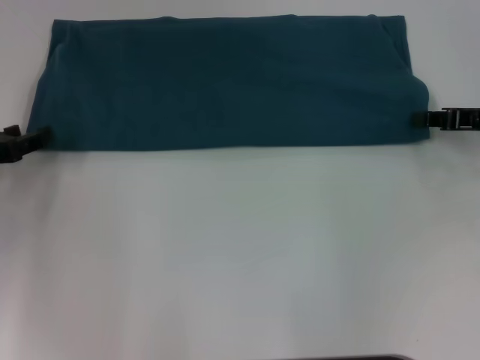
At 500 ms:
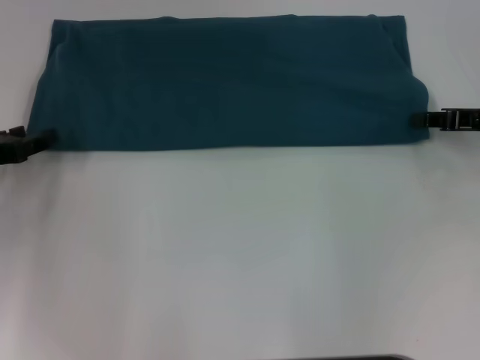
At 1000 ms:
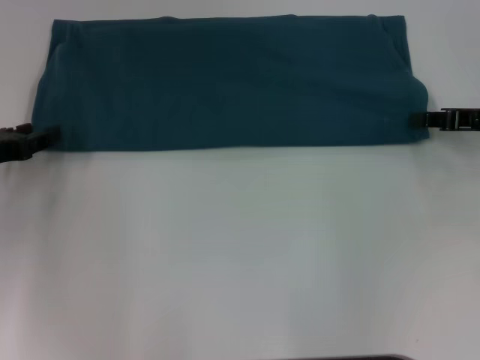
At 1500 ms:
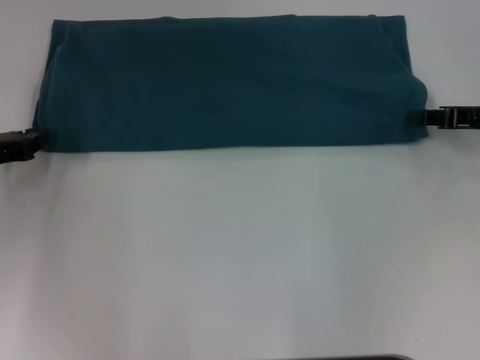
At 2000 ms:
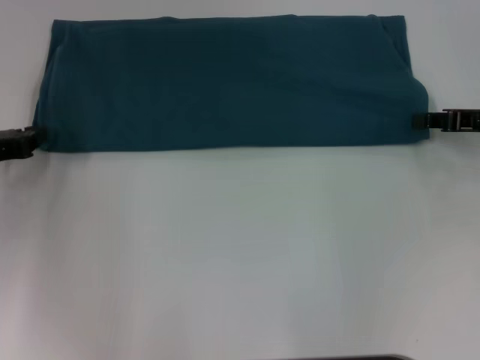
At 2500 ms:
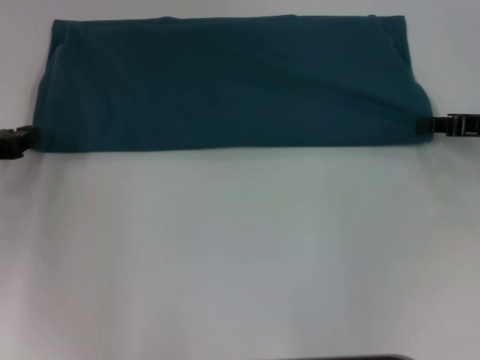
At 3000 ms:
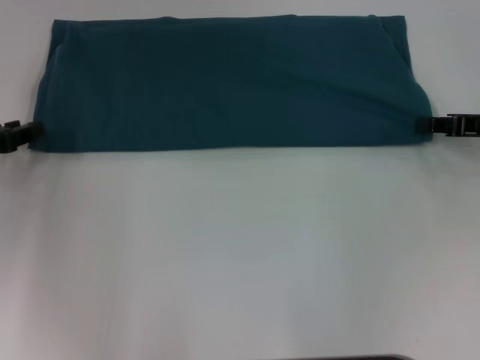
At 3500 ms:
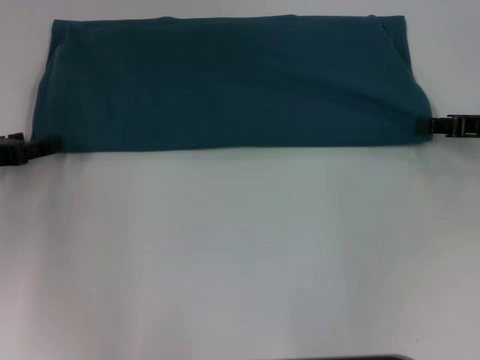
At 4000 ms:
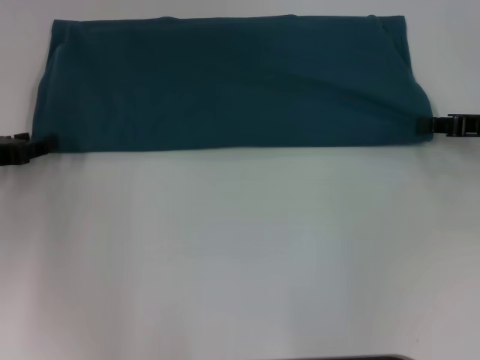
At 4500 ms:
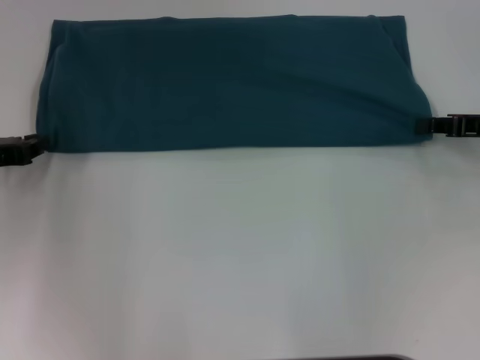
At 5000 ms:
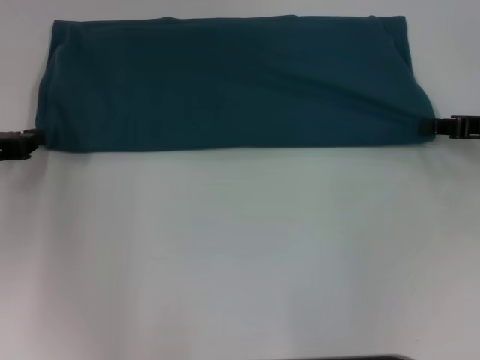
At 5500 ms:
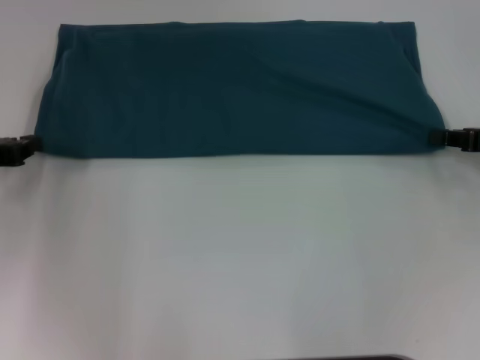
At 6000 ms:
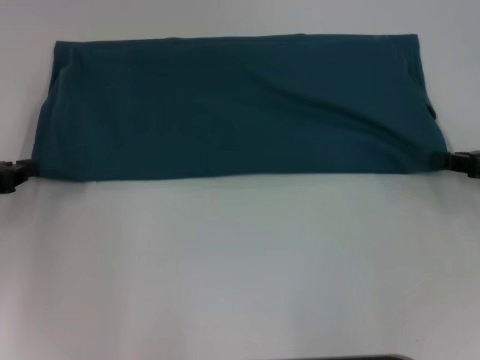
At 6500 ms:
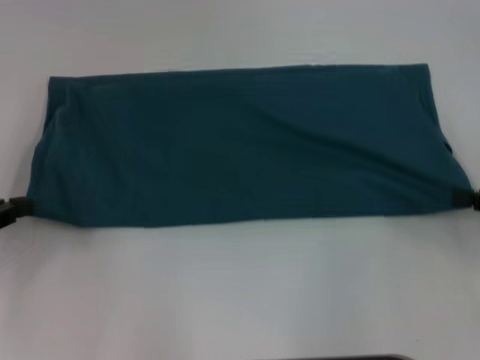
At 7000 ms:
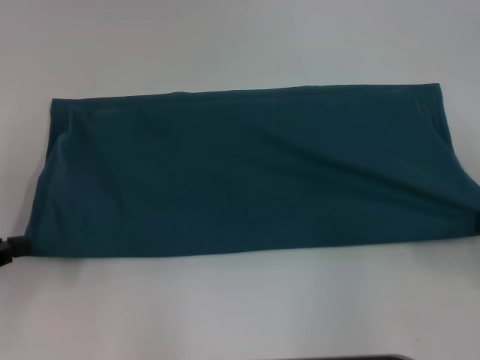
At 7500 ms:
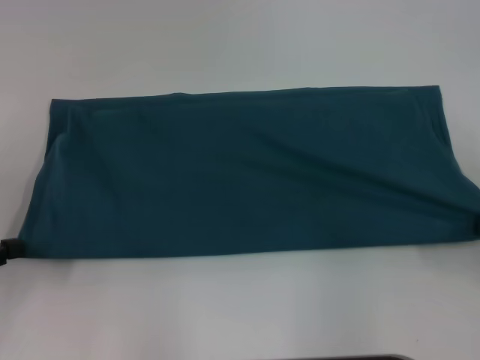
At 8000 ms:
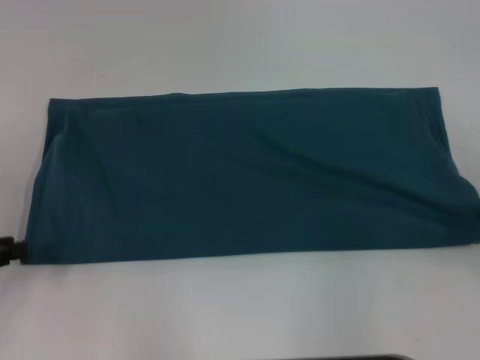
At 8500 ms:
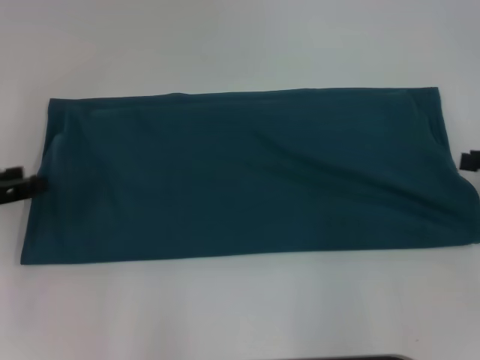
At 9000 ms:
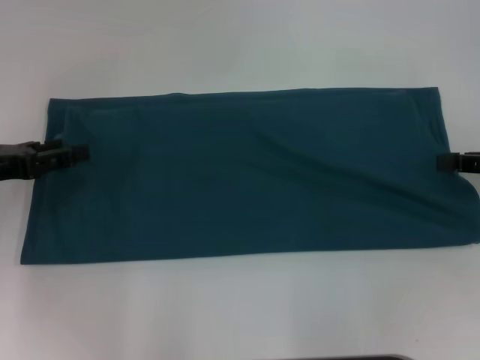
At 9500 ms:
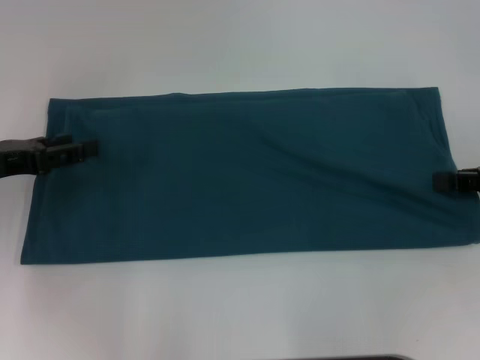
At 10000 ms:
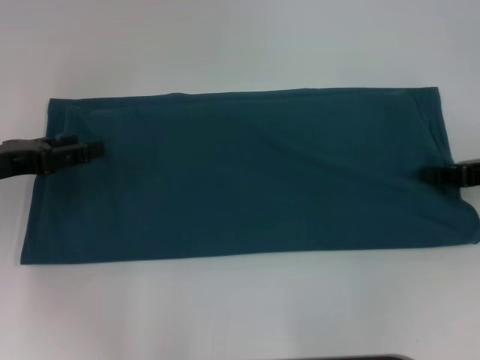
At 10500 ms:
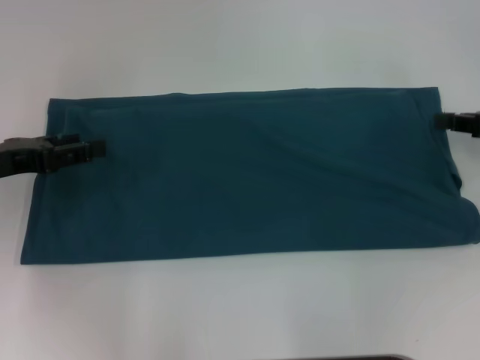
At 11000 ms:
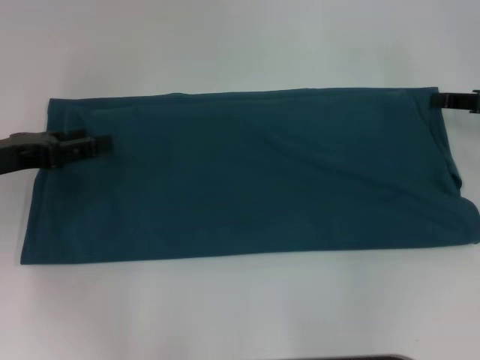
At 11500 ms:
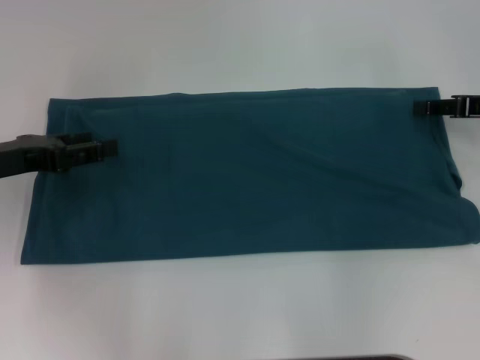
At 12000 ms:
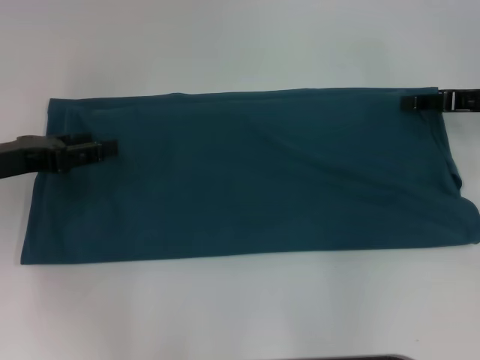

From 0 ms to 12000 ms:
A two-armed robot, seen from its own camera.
Step, from 0 ms to 8000 ms: Pull the clothes with your left hand.
Step, from 0 ms to 8000 ms: Pull the clothes with your right hand.
From 4000 ms to 6000 ms: The left gripper closes. The right gripper changes place by approximately 5 cm.
From 6000 ms to 8000 ms: Both grippers travel together backward, roughly 5 cm.
From 8000 ms to 10000 ms: The left gripper moves forward and to the right, some 10 cm, and opens its fingers, while the right gripper shifts about 10 cm forward and to the left, and opens, then closes again.
From 10000 ms to 12000 ms: The right gripper goes roughly 5 cm forward, and opens up.

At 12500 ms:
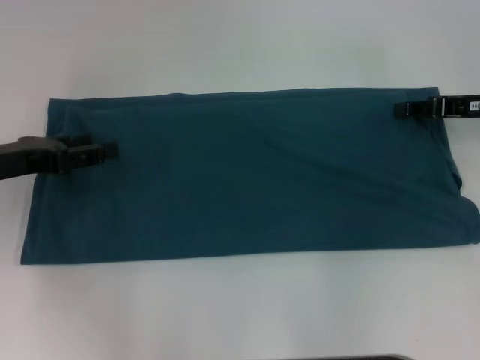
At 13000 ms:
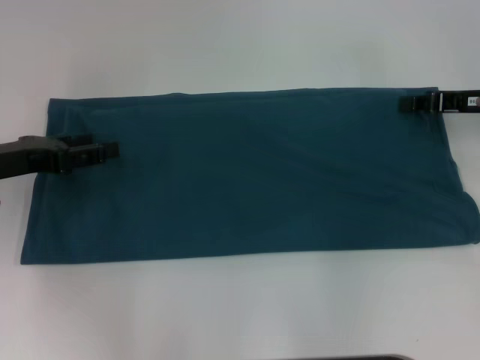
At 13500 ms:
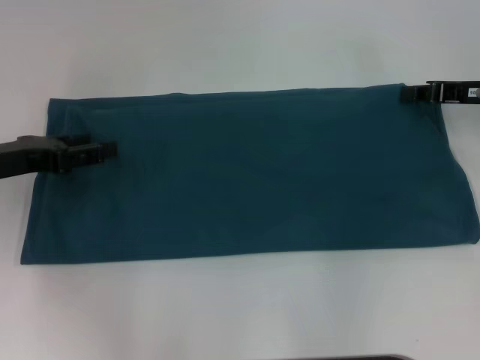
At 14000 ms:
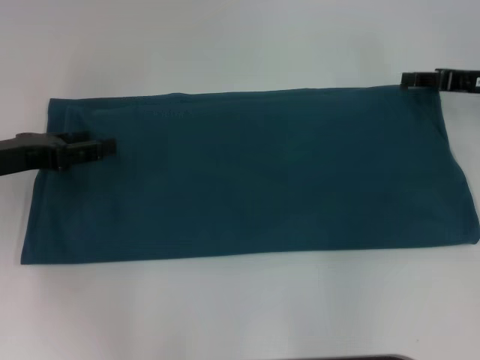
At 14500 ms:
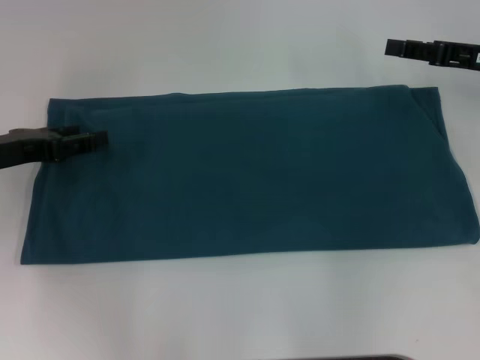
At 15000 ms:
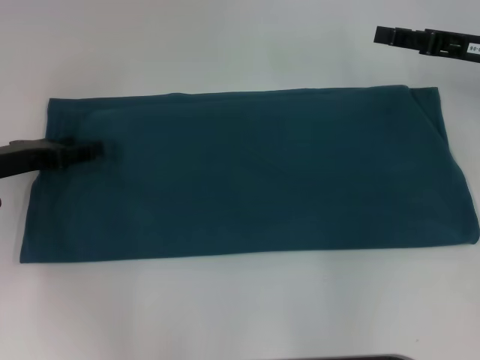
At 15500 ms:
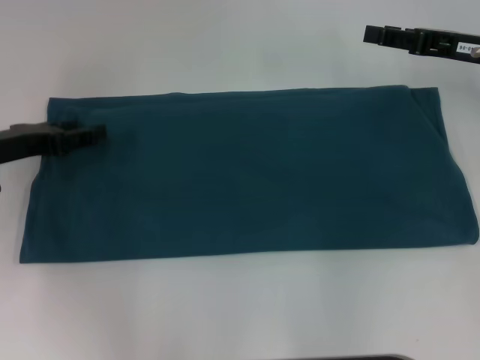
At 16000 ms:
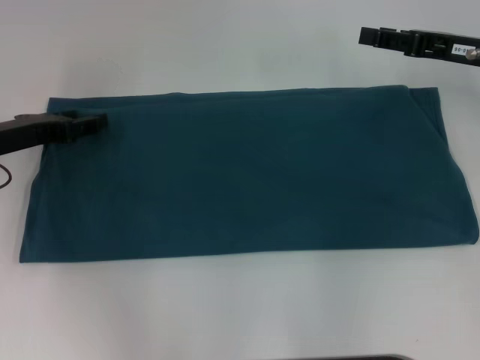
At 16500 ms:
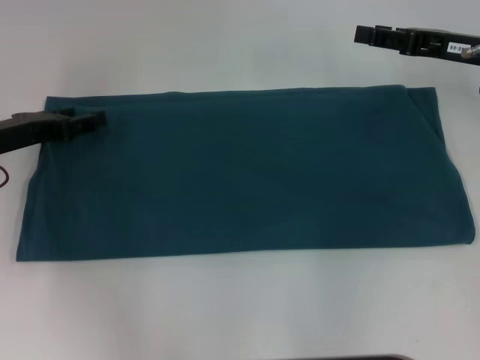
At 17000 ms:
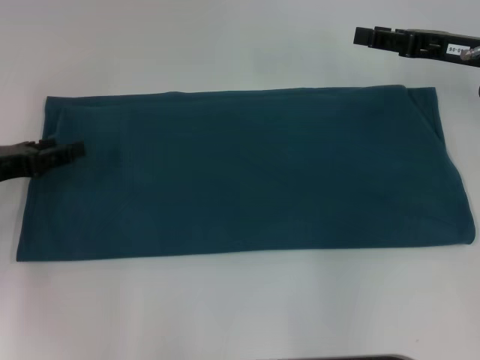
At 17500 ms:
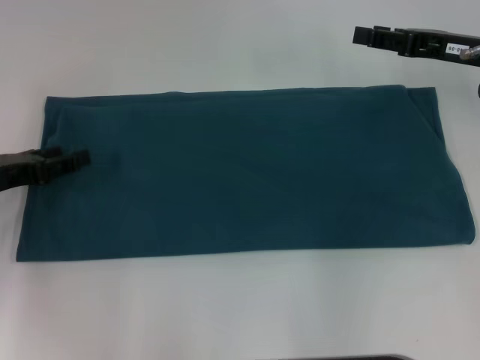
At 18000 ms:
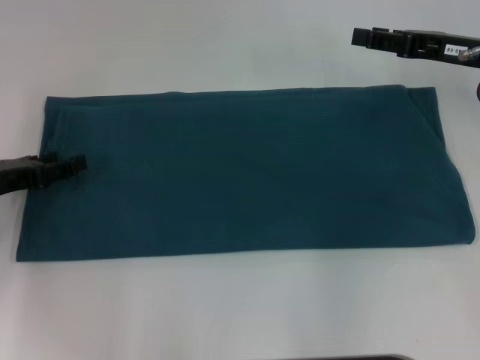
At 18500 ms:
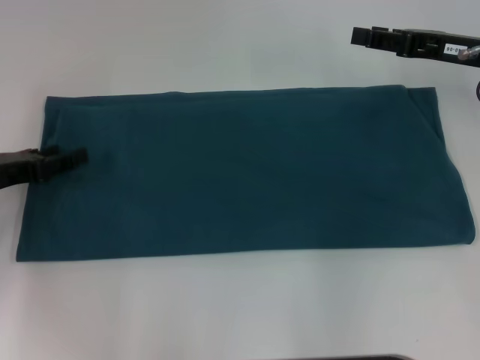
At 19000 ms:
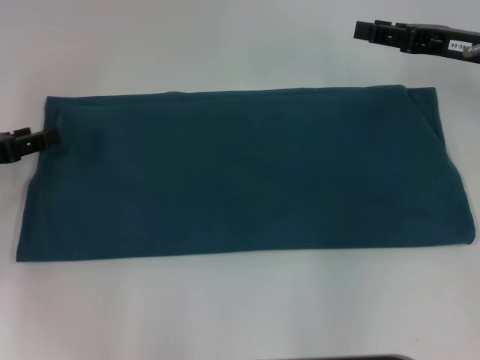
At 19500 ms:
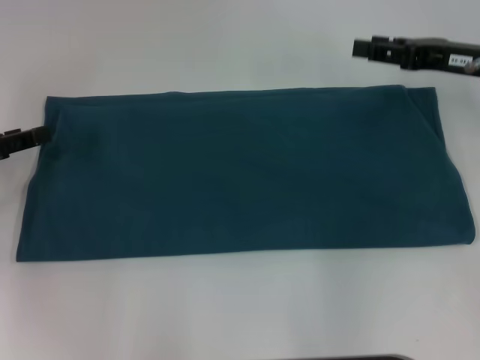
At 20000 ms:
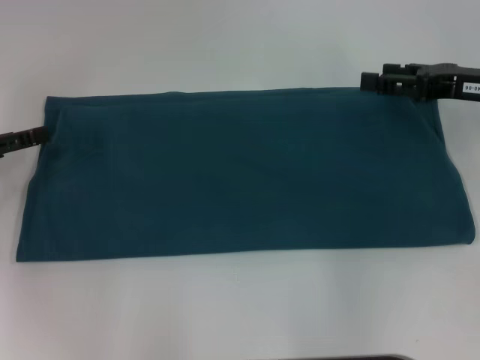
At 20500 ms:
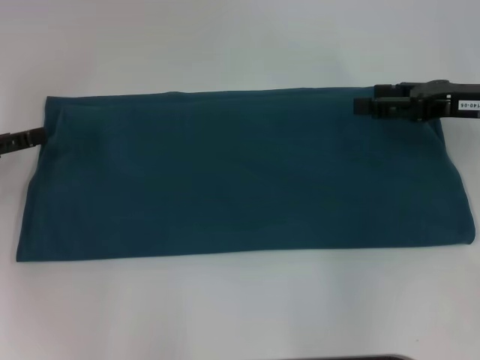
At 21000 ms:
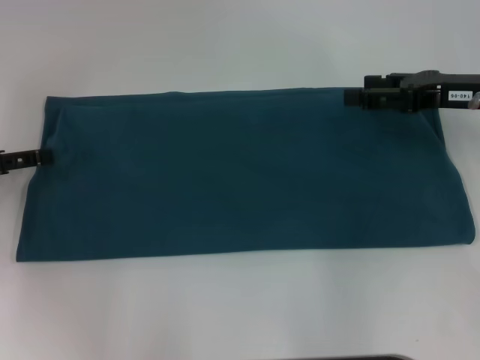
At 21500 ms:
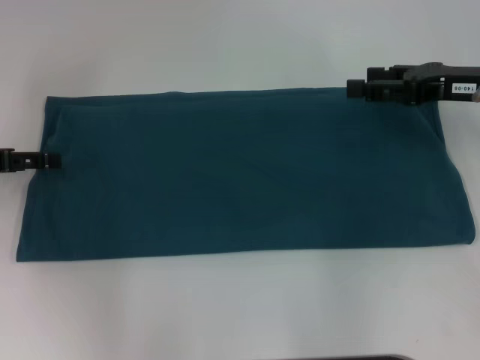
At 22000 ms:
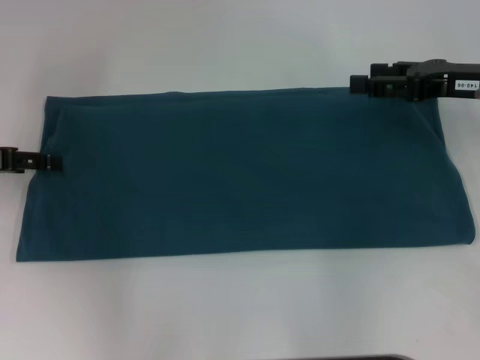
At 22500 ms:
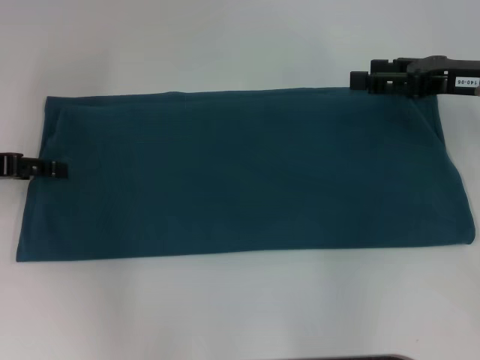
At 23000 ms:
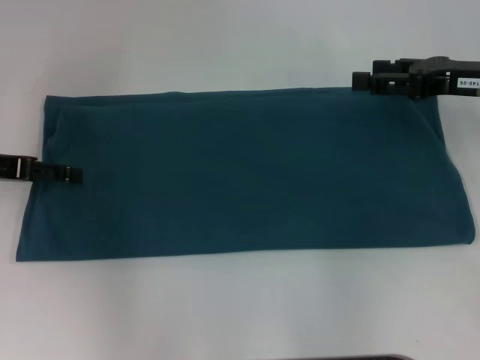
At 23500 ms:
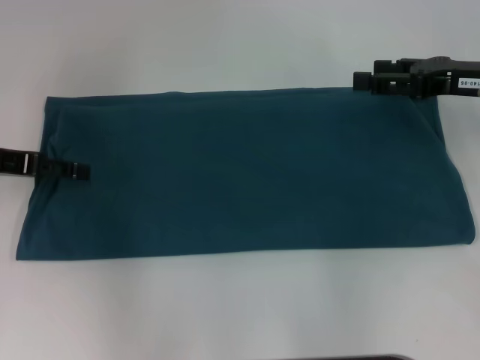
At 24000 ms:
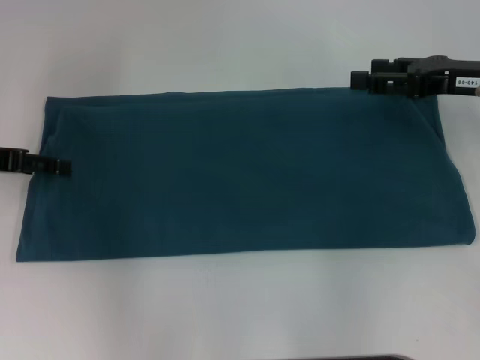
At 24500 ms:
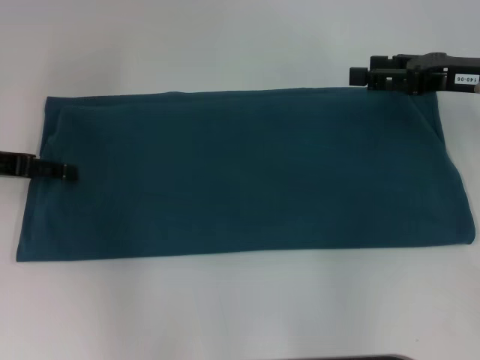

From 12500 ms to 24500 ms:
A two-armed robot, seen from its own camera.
From 12500 ms to 14500 ms: The grippers make only small movements.
From 14500 ms to 16500 ms: The grippers make only small movements.
From 16500 ms to 18500 ms: The left gripper moves roughly 5 cm.
From 18500 ms to 20500 ms: The grippers make only small movements.
From 20500 ms to 22500 ms: There are only small adjustments of the grippers.
From 22500 ms to 24500 ms: There are only small adjustments of the grippers.

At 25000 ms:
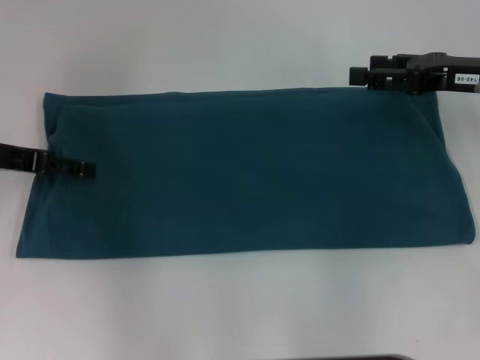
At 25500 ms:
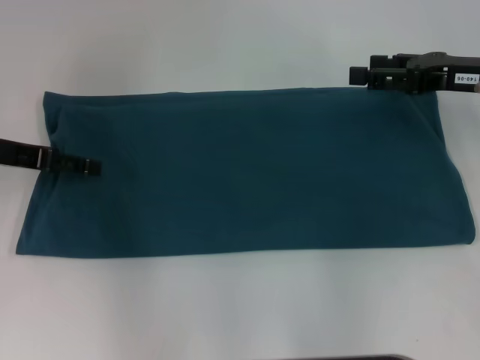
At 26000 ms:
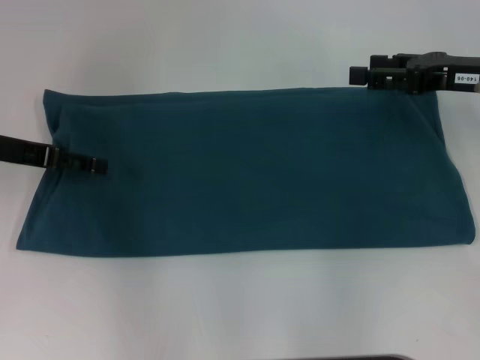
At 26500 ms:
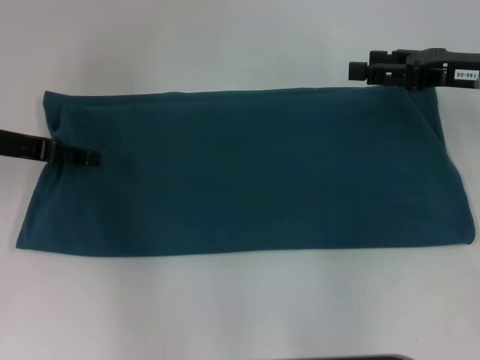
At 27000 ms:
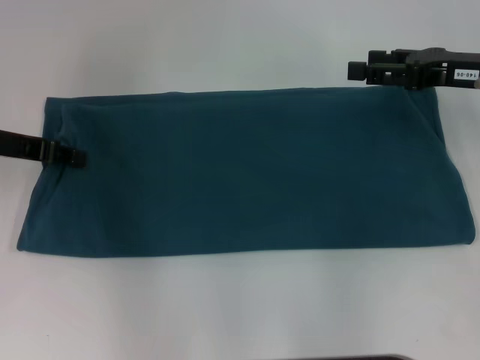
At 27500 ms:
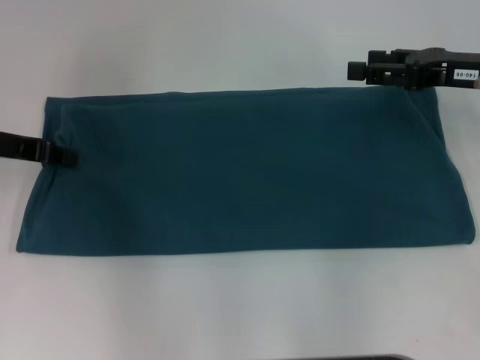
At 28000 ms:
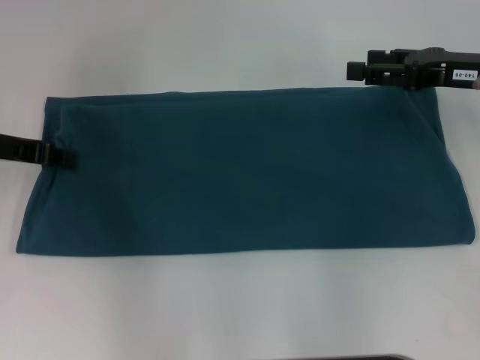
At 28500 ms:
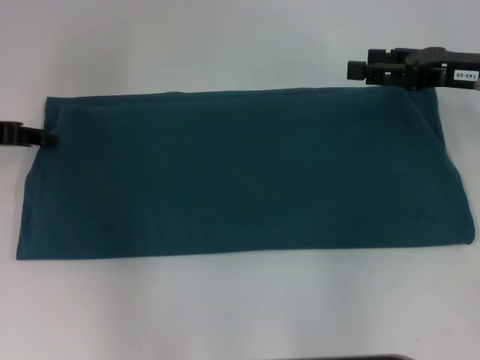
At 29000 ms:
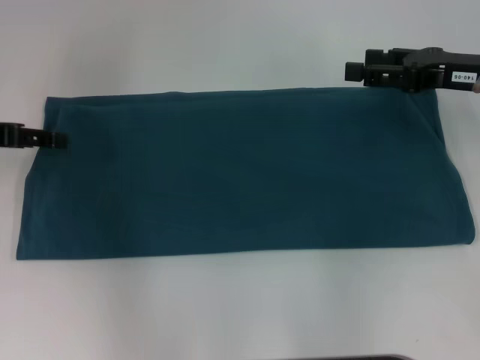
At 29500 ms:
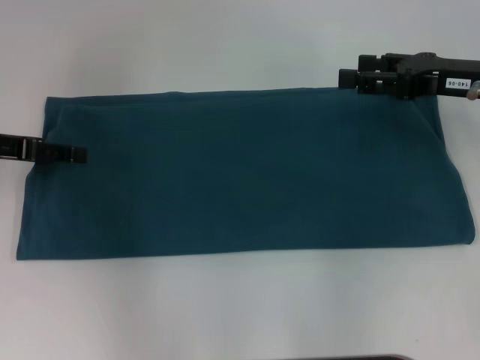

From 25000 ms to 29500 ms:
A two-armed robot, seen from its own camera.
From 25000 ms to 27000 ms: The left gripper closes.
From 27000 ms to 29500 ms: The left gripper closes, then reopens.
